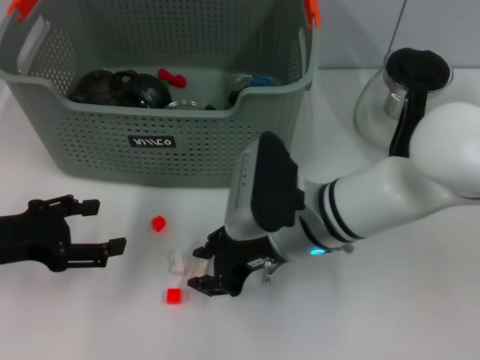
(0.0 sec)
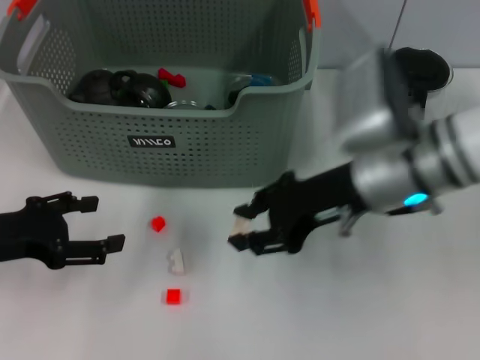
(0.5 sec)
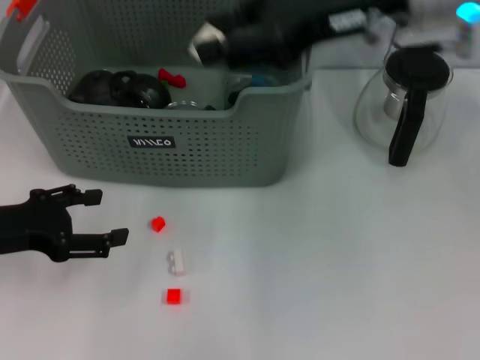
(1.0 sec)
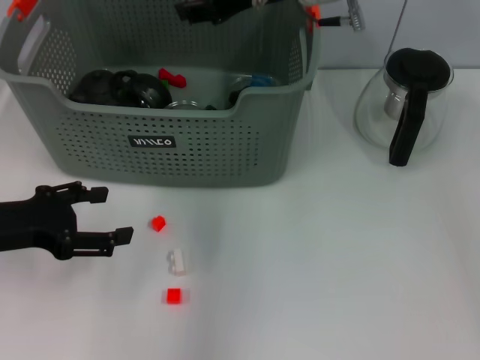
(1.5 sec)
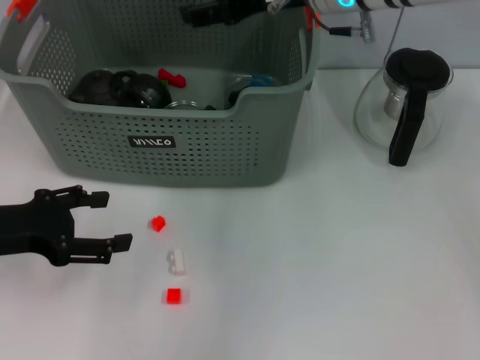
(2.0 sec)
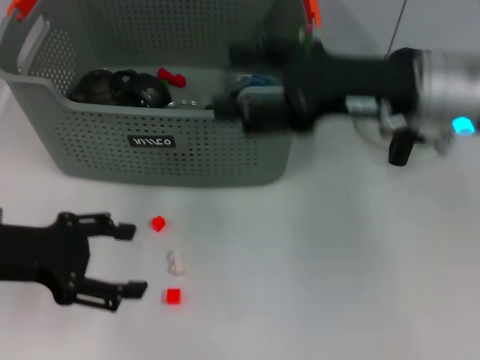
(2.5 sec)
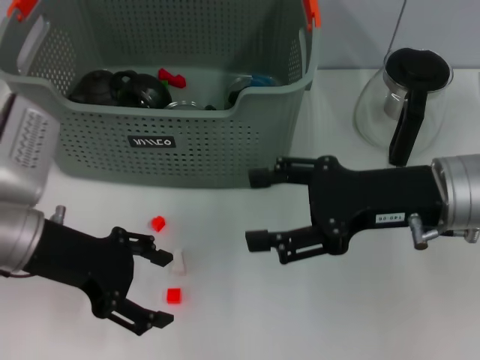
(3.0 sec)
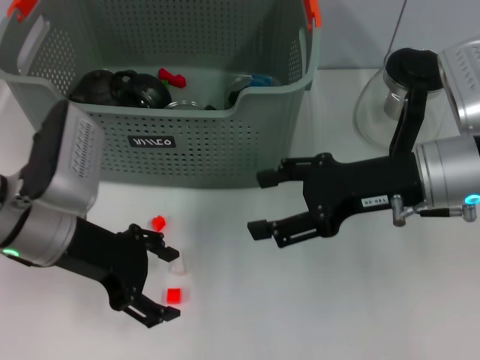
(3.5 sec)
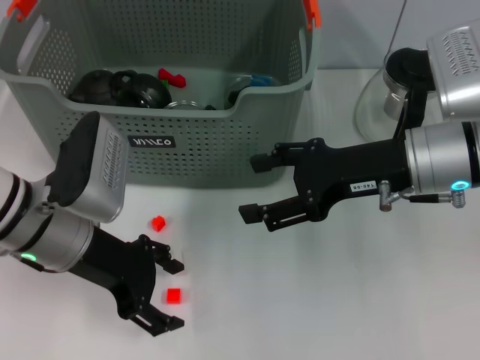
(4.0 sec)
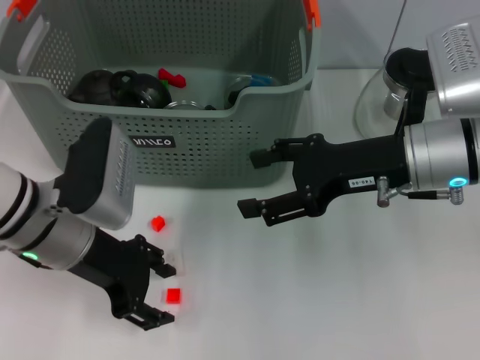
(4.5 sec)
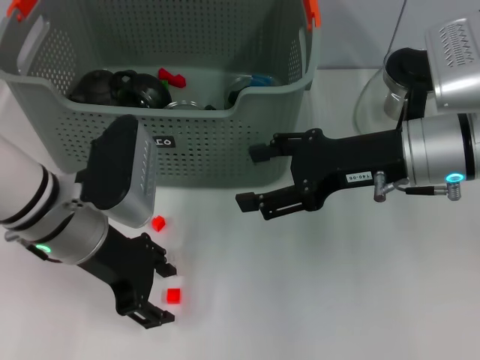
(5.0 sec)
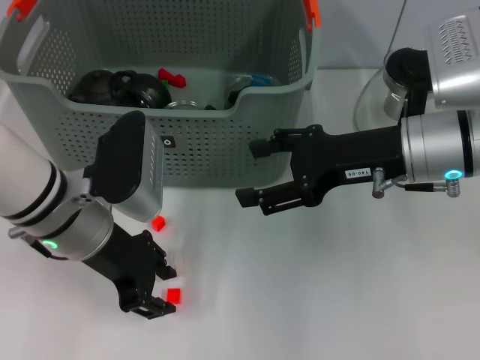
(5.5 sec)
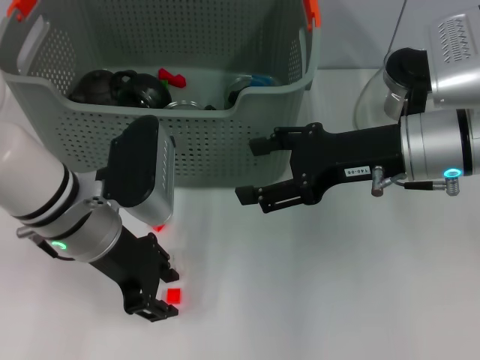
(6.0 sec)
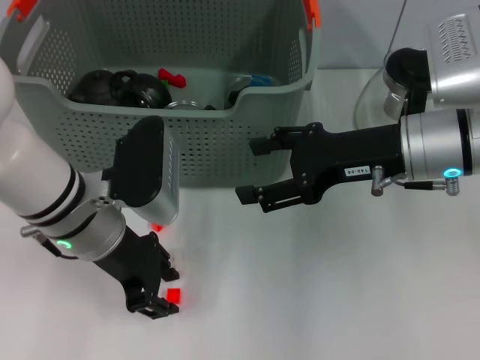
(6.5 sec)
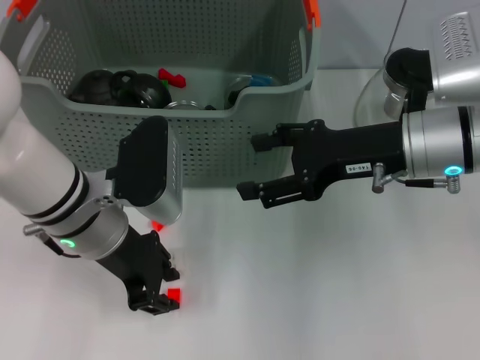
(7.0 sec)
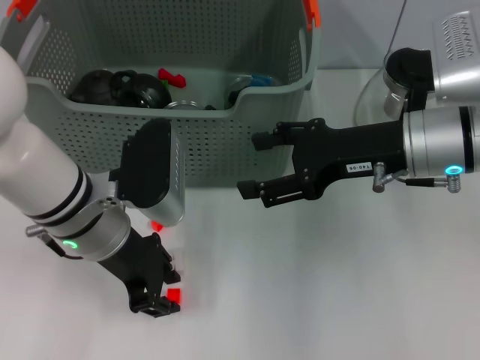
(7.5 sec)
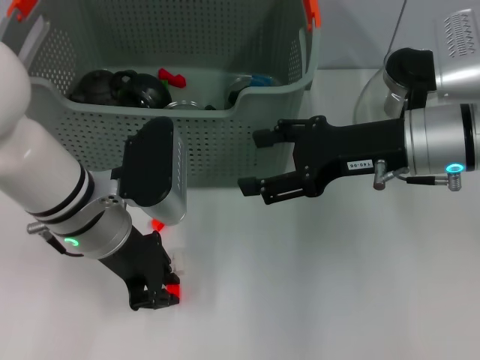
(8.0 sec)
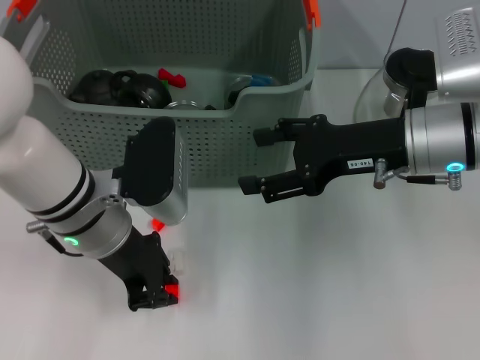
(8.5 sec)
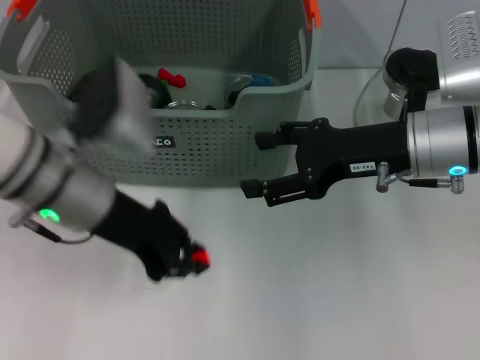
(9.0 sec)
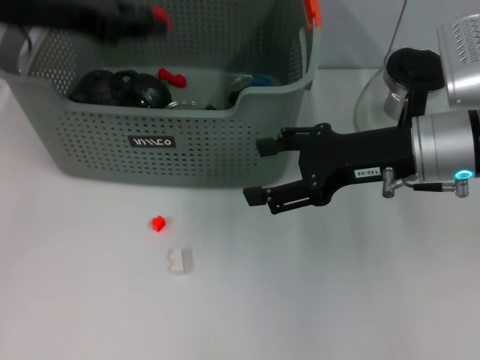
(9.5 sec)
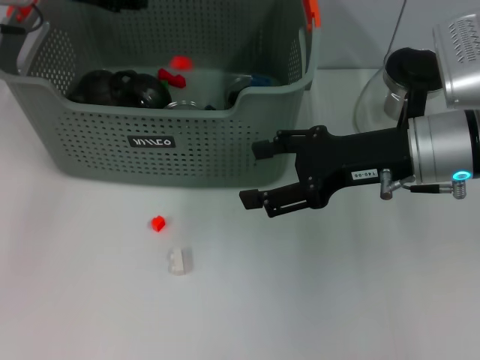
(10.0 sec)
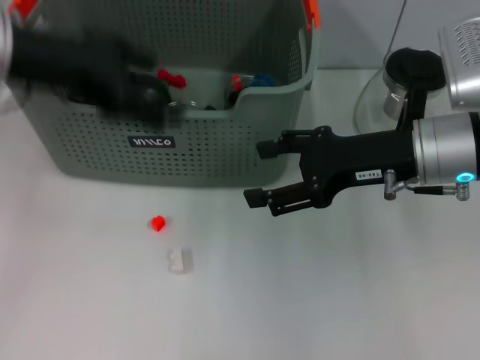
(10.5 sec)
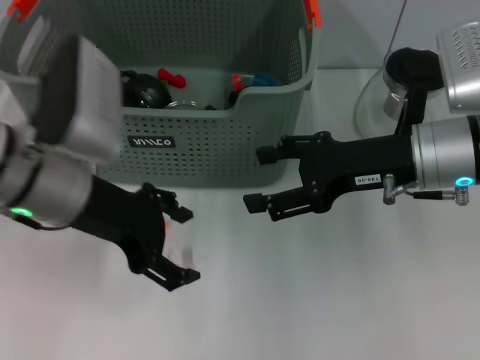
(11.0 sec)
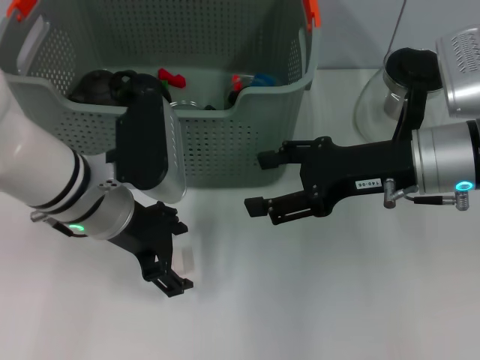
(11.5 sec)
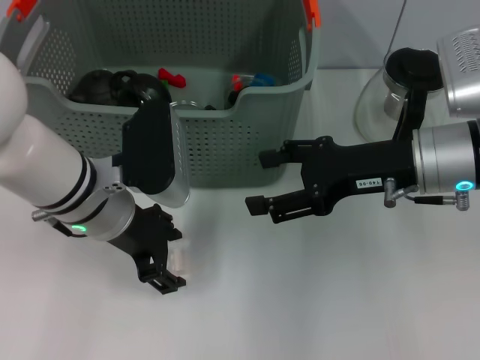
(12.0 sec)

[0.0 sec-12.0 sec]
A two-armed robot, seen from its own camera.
Task of the whole recording: pick up the teacup on the table and place it into the storage bin, pick up the block on the table and place it into the storage bin.
Step, 0.0 sec to 2.0 sec: Place the white block in the storage box with right gripper.
Step, 2.5 sec to 8.0 sec: Grasp the orange block with left gripper.
Step, 8.5 sec to 10.0 sec: Place the orange block in the storage box with left gripper.
0.0 sec to 2.0 sec: The right gripper heads upward and forward, covering about 20 cm.
2.0 sec to 4.0 sec: The right gripper heads backward, downward and to the right, covering some 15 cm, while the left gripper shifts roughly 10 cm to the right.
4.0 sec to 6.0 sec: The left gripper closes up.
6.0 sec to 8.0 sec: The two grippers keep their place.
8.0 sec to 10.0 sec: The left gripper is displaced forward, upward and to the left by approximately 20 cm.
10.0 sec to 12.0 sec: The left gripper shifts about 20 cm downward, backward and to the right, and opens up.

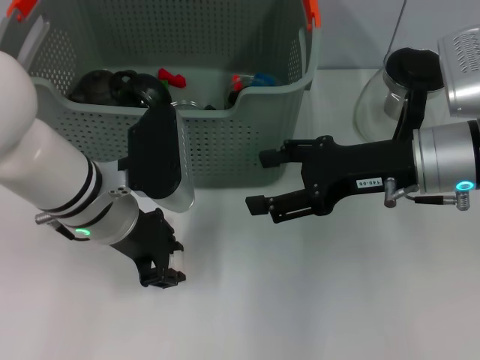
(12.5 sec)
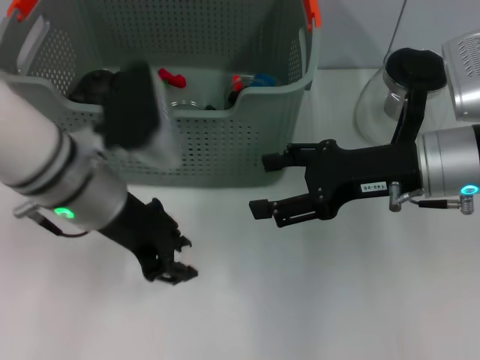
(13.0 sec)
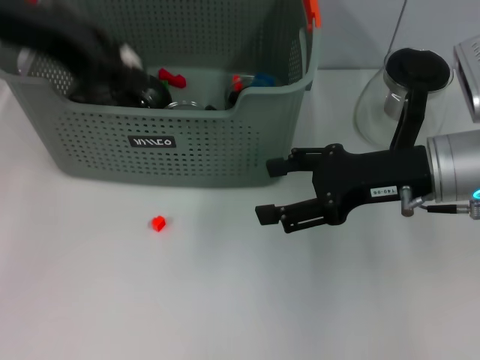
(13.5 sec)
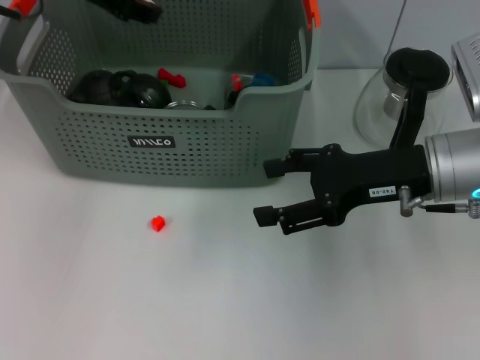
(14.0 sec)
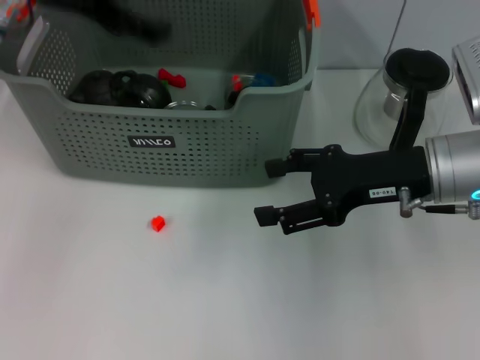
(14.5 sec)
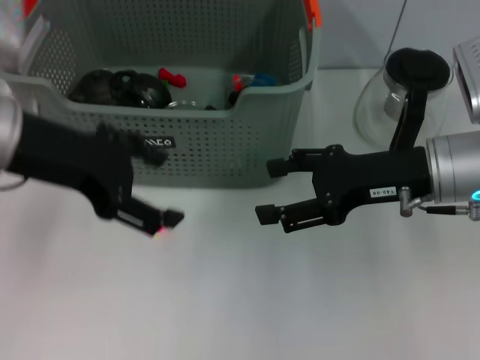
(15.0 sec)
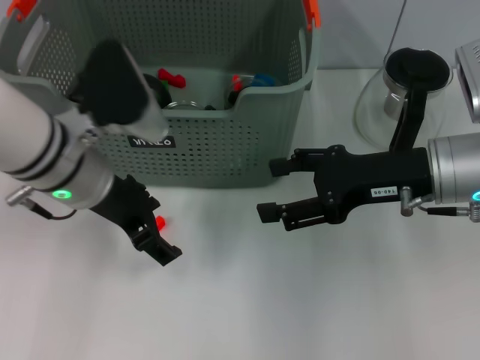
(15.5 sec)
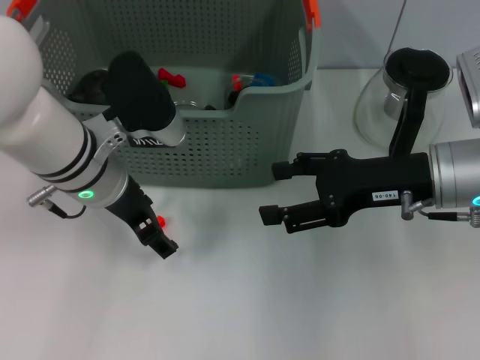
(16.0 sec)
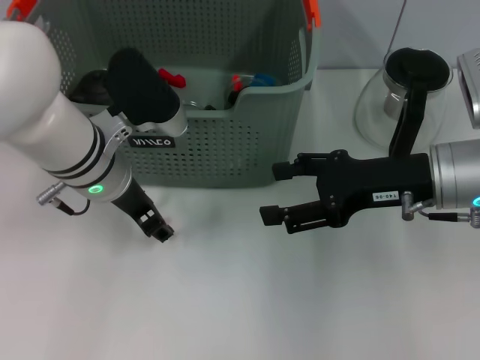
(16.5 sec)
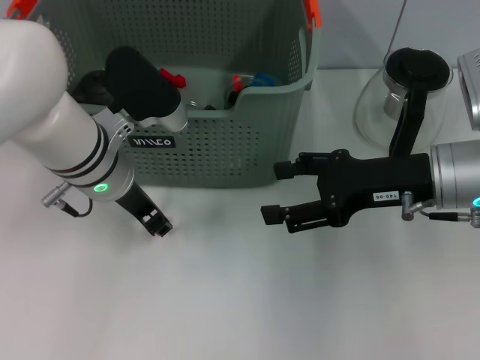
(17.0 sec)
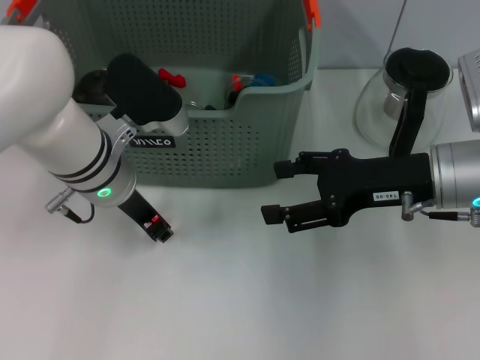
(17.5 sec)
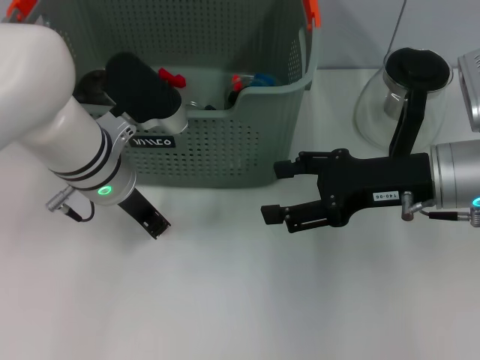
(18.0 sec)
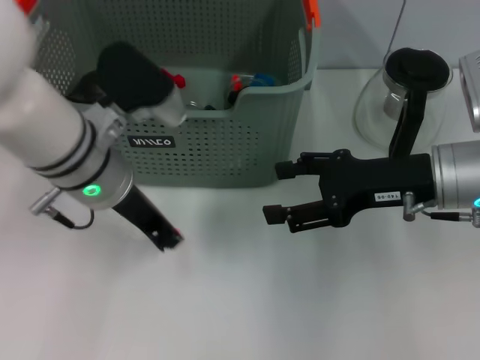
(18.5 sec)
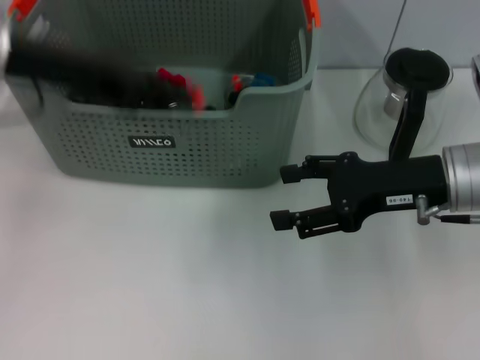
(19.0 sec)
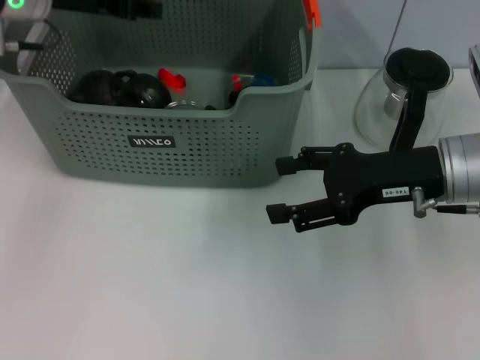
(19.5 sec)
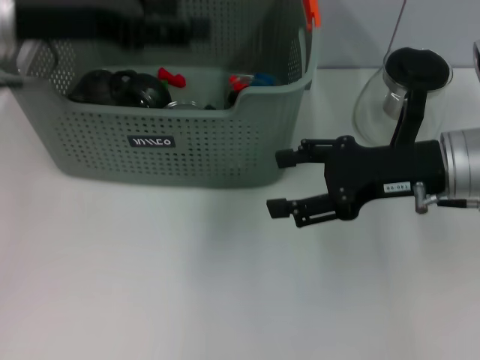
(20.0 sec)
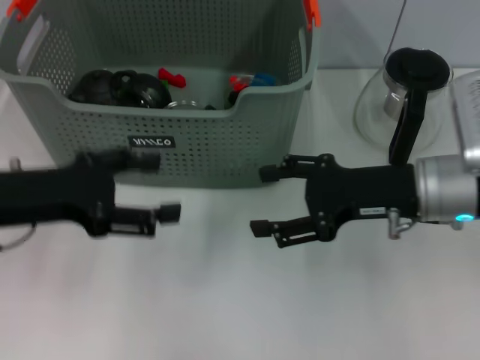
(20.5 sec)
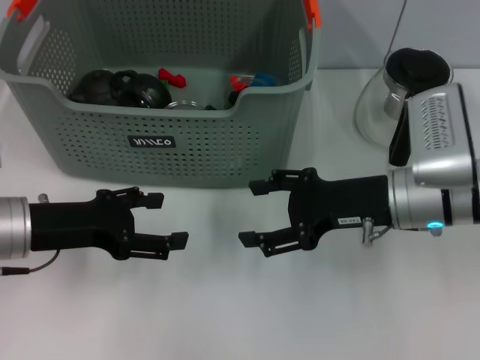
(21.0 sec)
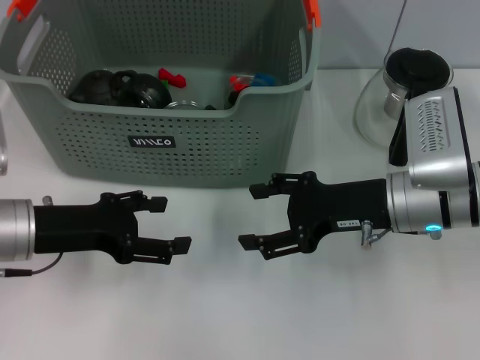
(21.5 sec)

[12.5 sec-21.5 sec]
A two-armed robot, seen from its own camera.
Task of the whole recording: pick up the teacup on the table and place it into the storage bin, pick up the block on the table and place it into the storage bin.
Step, 13.0 sec to 14.0 sec: Place the white block in the storage box with left gripper.
Step, 14.5 sec to 18.0 sec: Grasp the orange block with left gripper.
Step, 18.5 sec to 19.5 sec: Place the orange block in the storage box with left gripper.
12.5 sec to 14.5 sec: The left gripper goes roughly 20 cm upward, to the left and forward.
14.5 sec to 17.0 sec: The left gripper shifts some 15 cm downward and to the right.
17.0 sec to 19.5 sec: The left gripper goes some 15 cm upward, to the left and forward.
19.5 sec to 21.5 sec: The right gripper changes place by roughly 5 cm; the left gripper travels backward and downward by approximately 20 cm, and opens its fingers.
